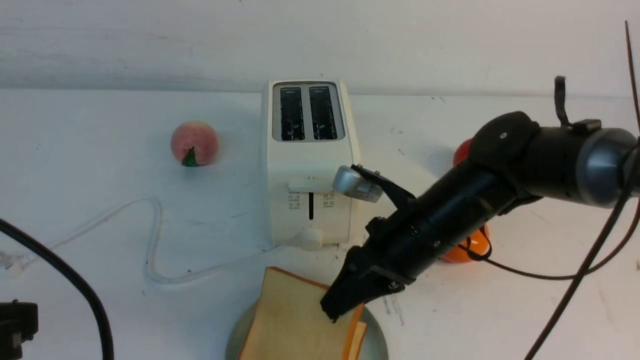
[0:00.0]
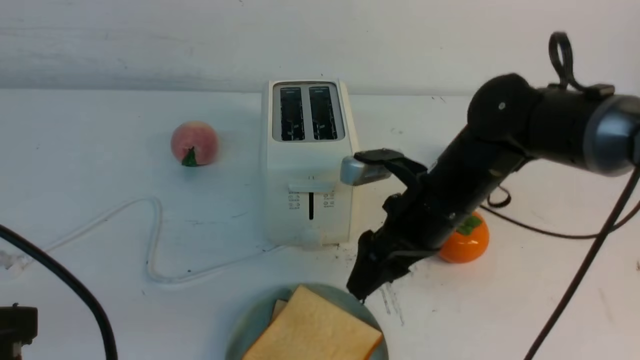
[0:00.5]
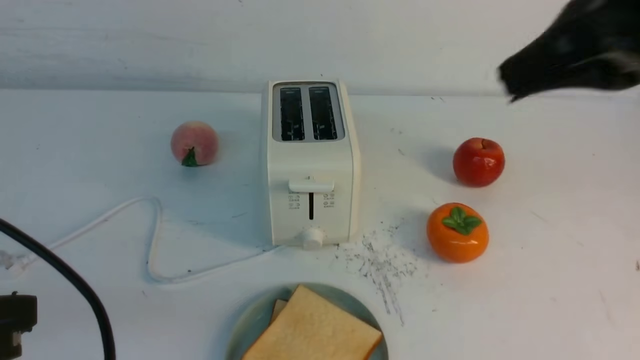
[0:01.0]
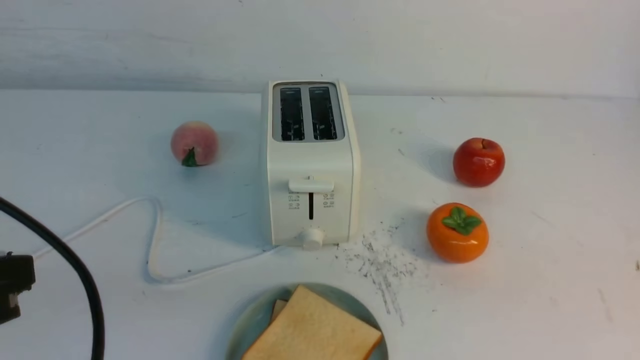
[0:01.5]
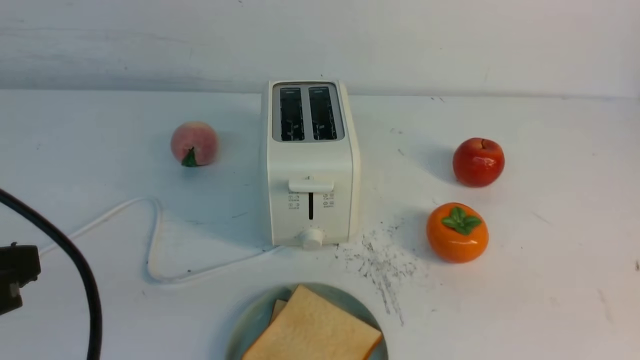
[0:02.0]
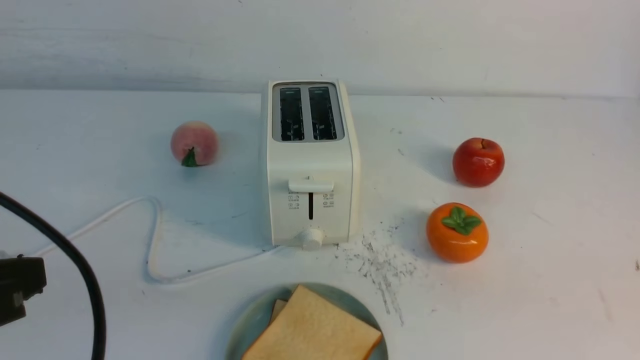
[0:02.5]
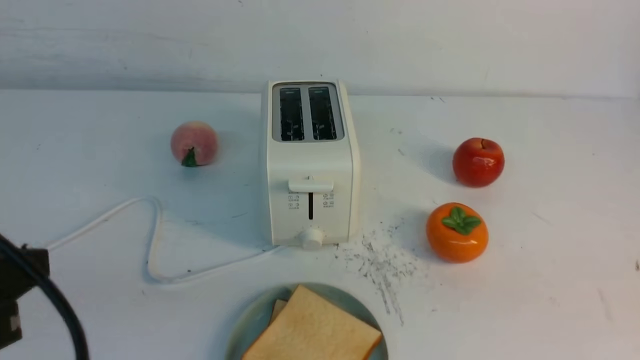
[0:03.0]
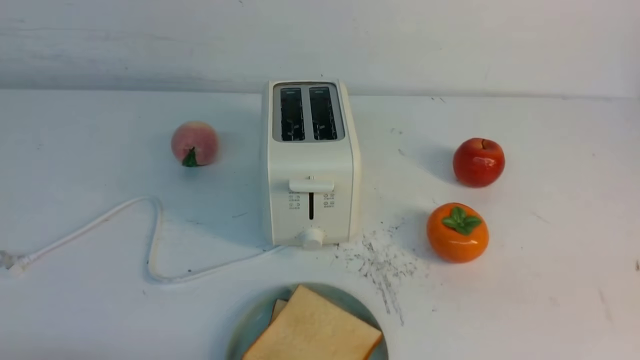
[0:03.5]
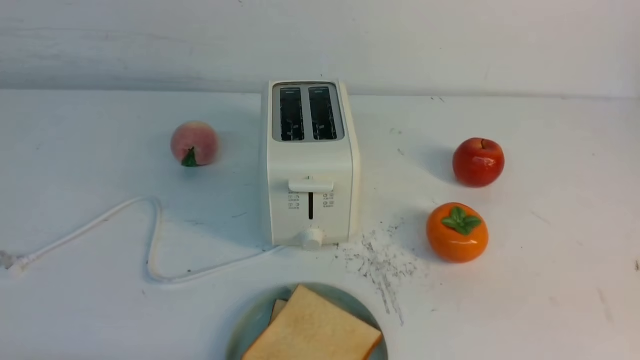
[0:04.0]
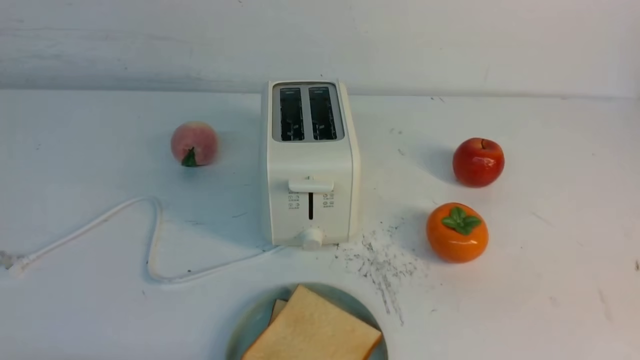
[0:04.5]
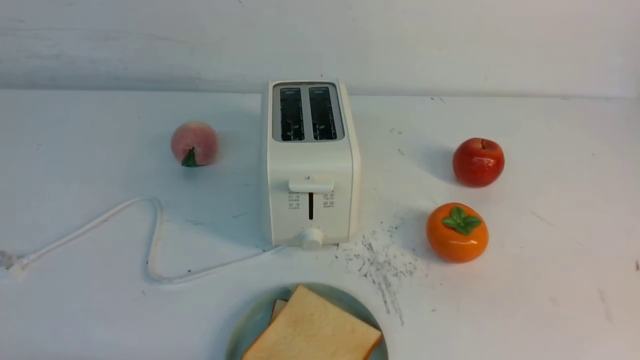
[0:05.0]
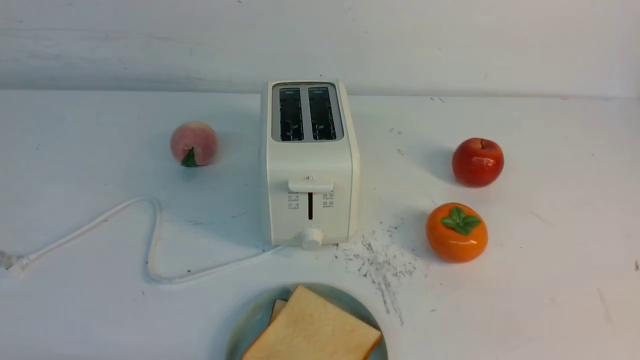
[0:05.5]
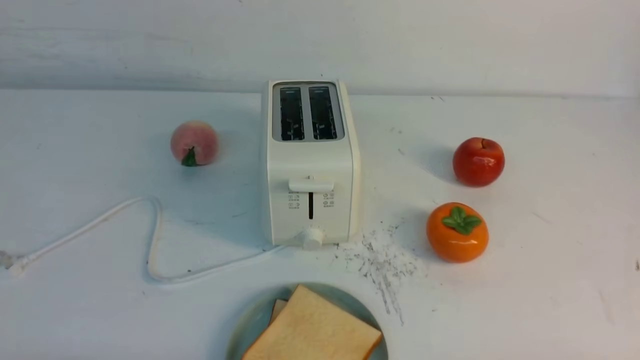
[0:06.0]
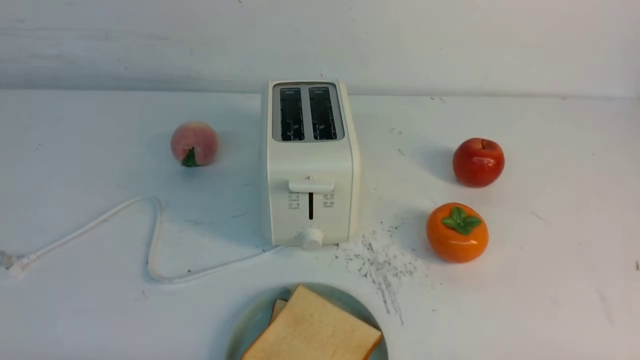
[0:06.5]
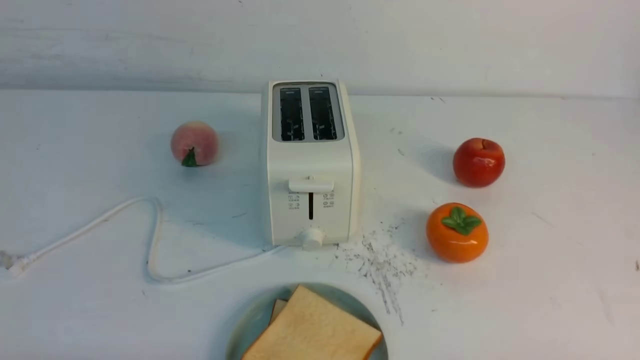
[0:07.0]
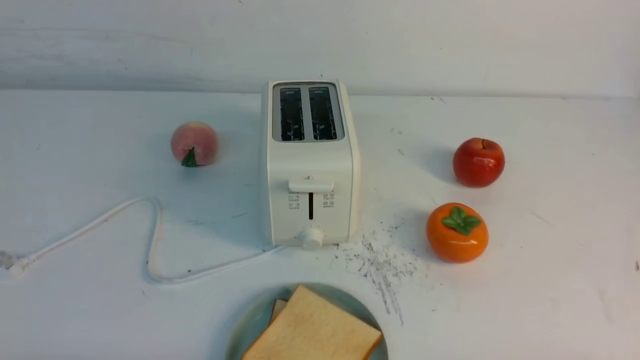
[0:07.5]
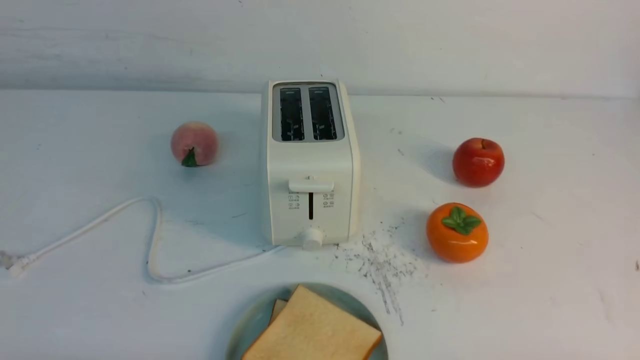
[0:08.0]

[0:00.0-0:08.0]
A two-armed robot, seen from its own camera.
Task of the whole recording: take toasted bread from bread machine on white table place on plate.
0:00.0 to 0:02.0: The right gripper heads backward, to the right and upward, covering about 40 cm, and closes up.
0:02.0 to 0:04.0: The left gripper heads downward, covering about 15 cm.
0:06.0 to 0:08.0: Both grippers stay about where they are.

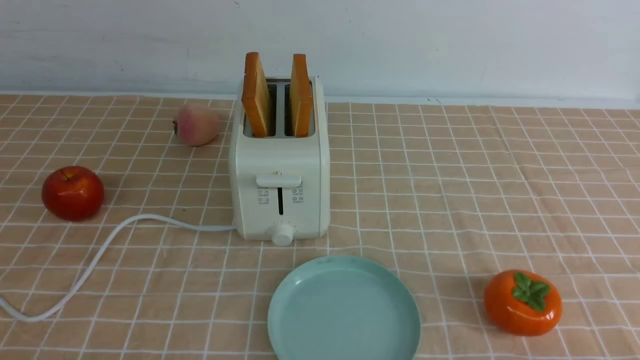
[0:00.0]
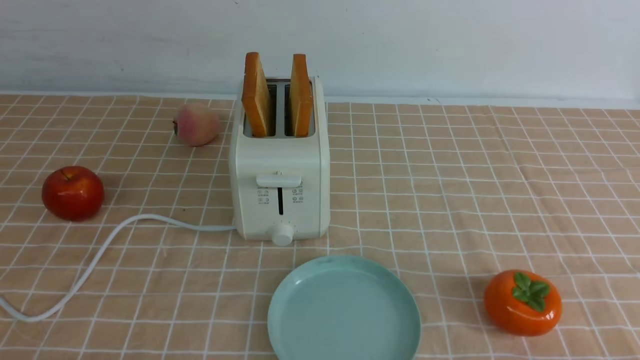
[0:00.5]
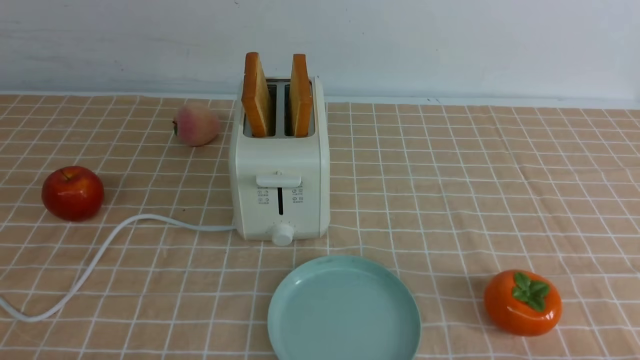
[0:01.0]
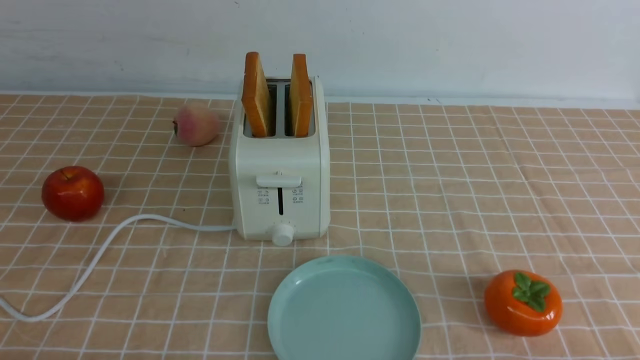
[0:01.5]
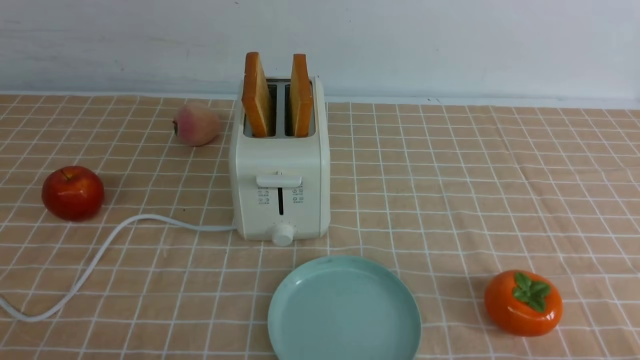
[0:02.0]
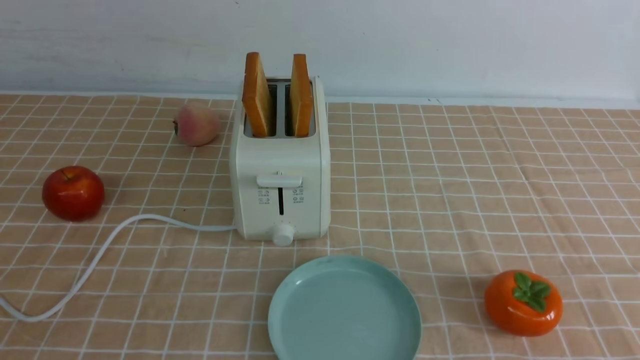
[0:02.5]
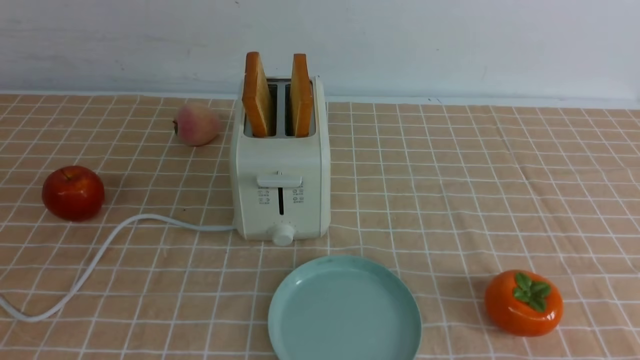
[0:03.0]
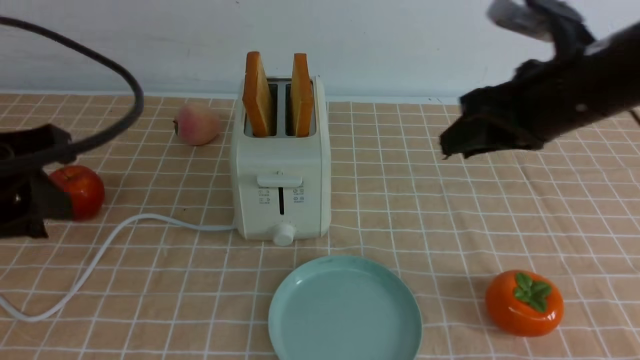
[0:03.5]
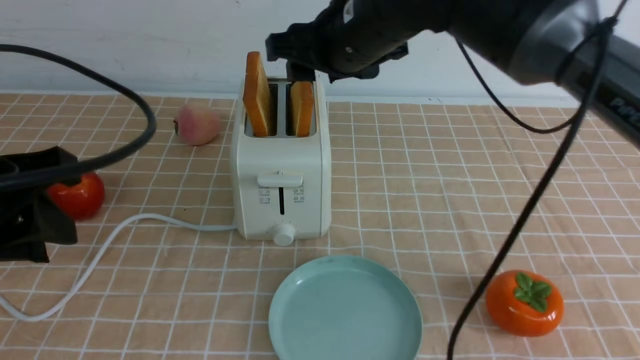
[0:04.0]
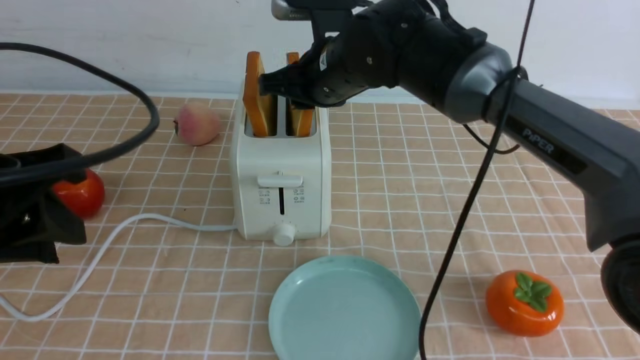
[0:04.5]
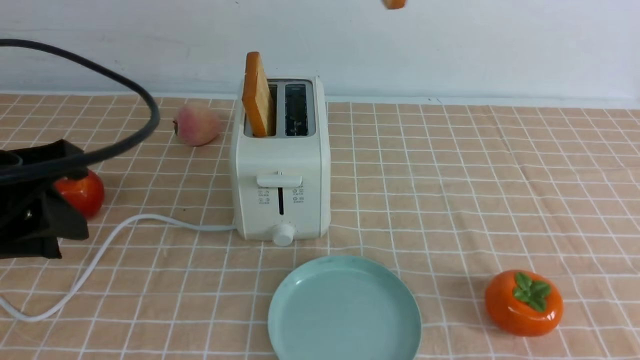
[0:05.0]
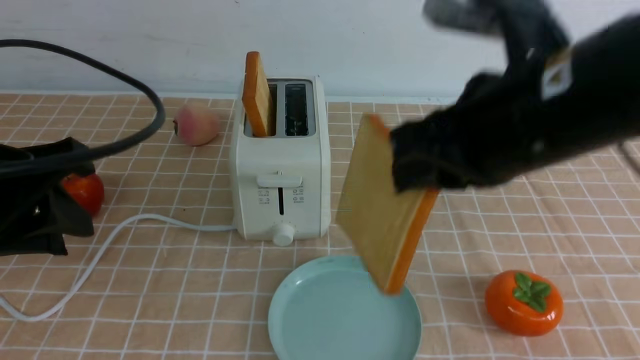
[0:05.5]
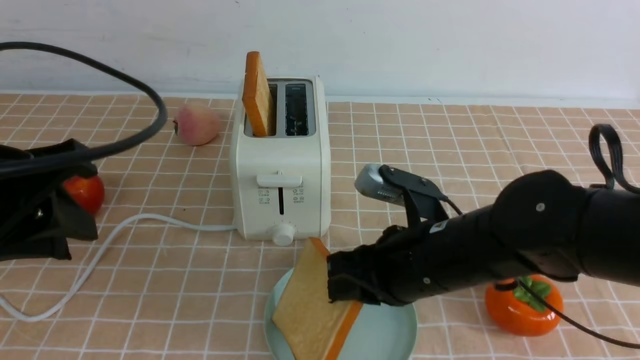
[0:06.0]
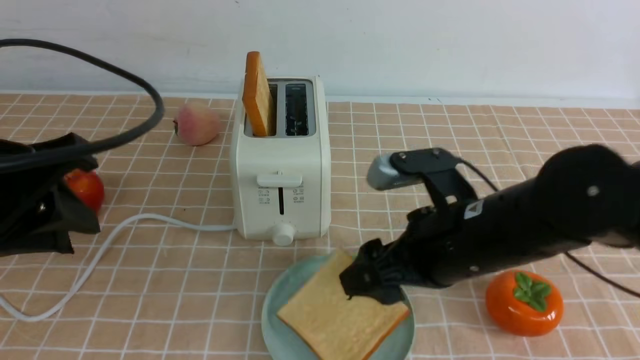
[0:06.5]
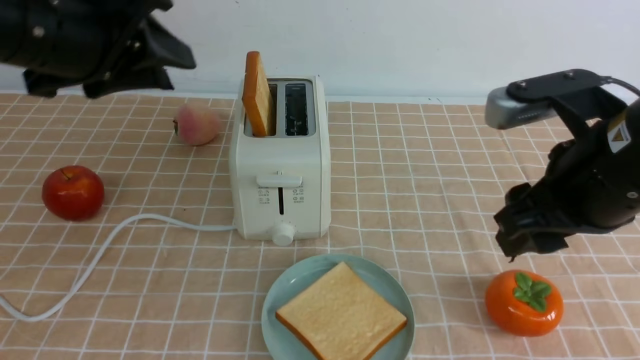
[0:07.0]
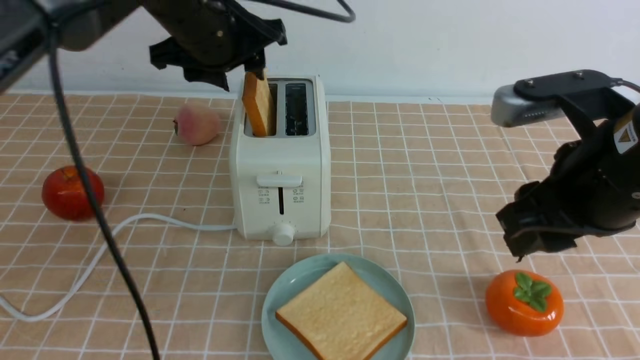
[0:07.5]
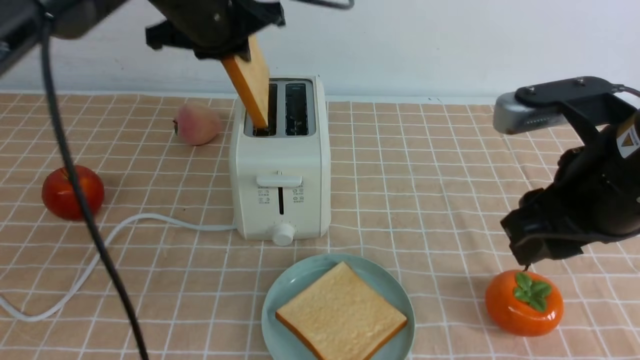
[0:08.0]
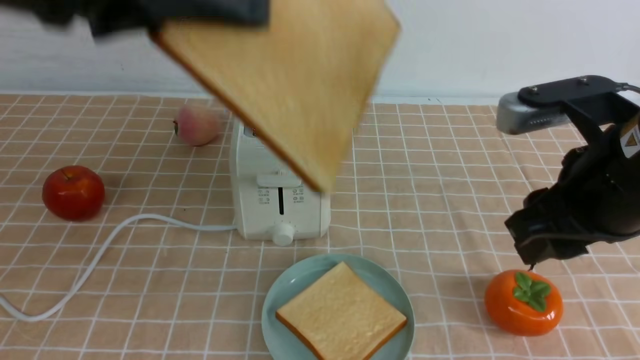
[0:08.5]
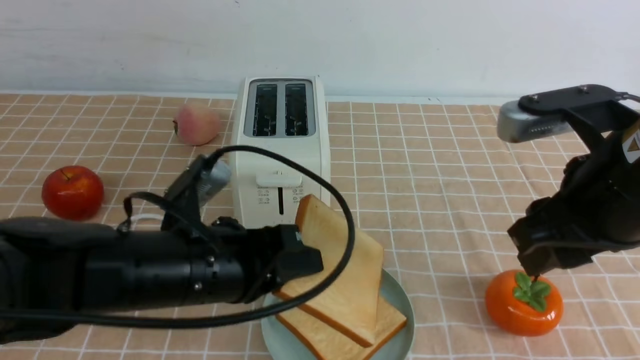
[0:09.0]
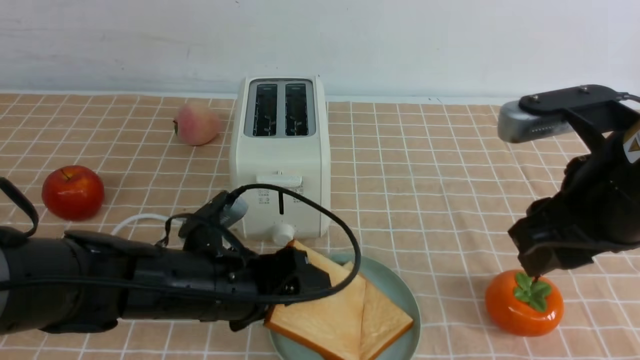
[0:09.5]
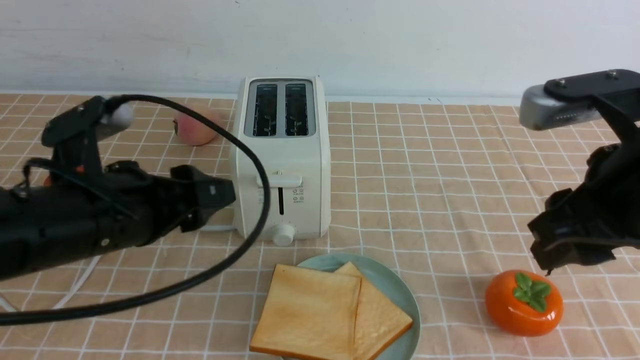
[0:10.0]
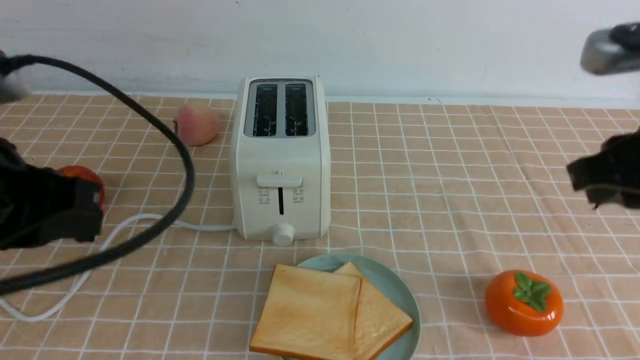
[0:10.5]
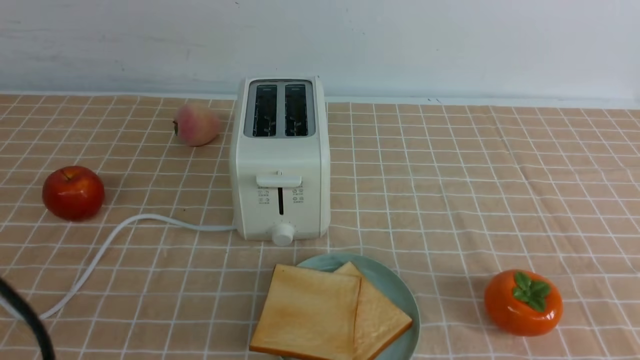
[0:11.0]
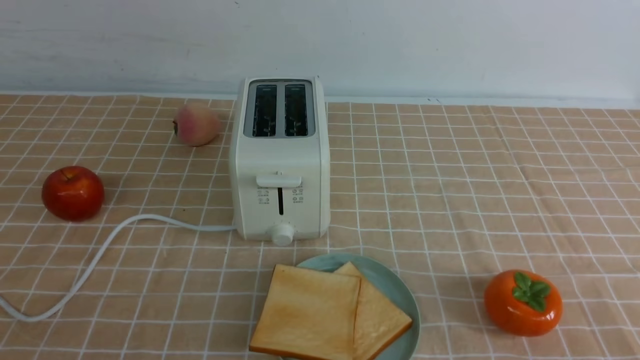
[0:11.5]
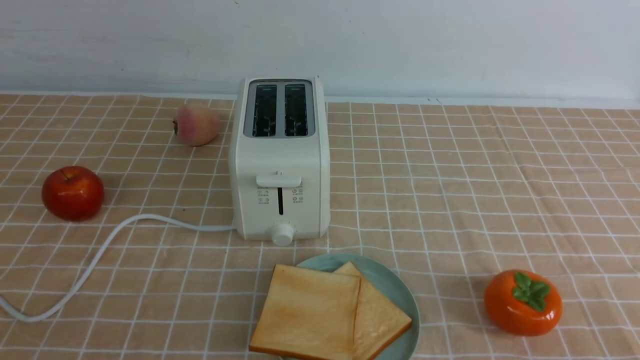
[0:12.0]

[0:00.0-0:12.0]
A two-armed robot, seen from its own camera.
Task of the whole recording: take toasted bread from bread machine on light coffee tablecloth place on plate.
Step, 0:00.0 to 0:04.5: use the right arm to take out a slice of bread.
Step, 0:05.0 to 0:06.5: use the right arm to put a slice of bread into the plate.
Step, 0:07.0 to 0:08.0: use the left arm to take out a slice of bread.
Step, 0:08.5 to 0:09.5: use the left arm to put a slice of bread into the empty plate.
0:02.0 to 0:04.0: The right gripper moves forward, to the left and upward, some 50 cm. The left gripper travels forward and upward by some 20 cm.
0:04.0 to 0:06.0: The right gripper moves backward and downward, approximately 20 cm, and closes.
0:06.0 to 0:08.0: The right gripper moves upward and to the right, approximately 15 cm, and opens, then closes once more. The left gripper travels forward and to the right by roughly 25 cm.
0:08.0 to 0:10.0: The left gripper heads backward and downward, covering roughly 20 cm, and opens up.
0:10.0 to 0:12.0: The right gripper is displaced backward, downward and to the right by about 20 cm, and closes. The left gripper is displaced backward by about 20 cm, and closes its fingers.
